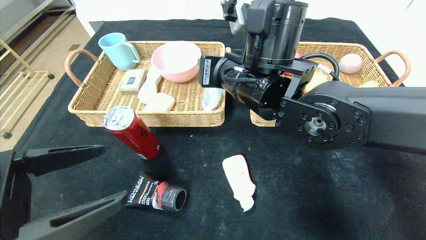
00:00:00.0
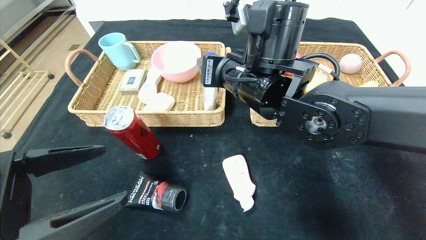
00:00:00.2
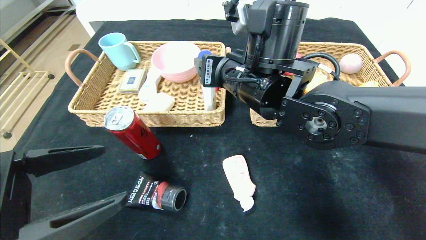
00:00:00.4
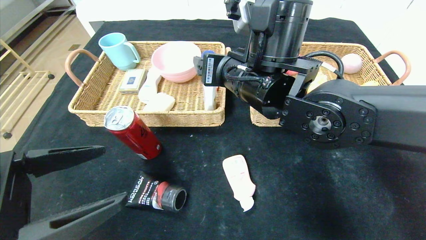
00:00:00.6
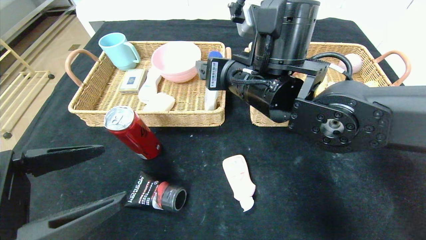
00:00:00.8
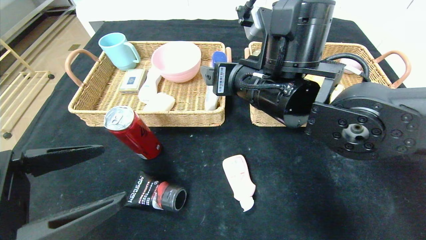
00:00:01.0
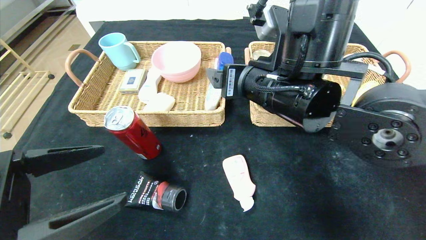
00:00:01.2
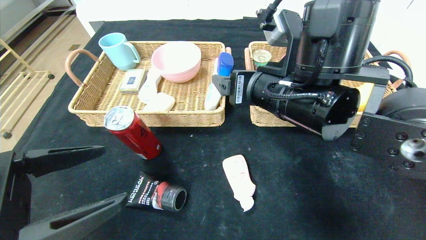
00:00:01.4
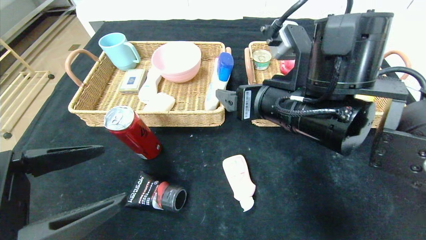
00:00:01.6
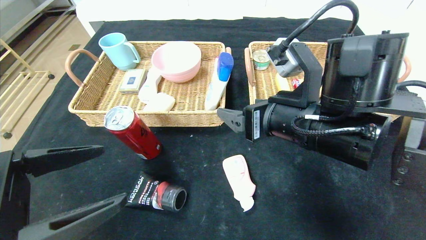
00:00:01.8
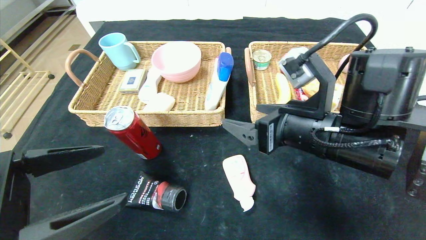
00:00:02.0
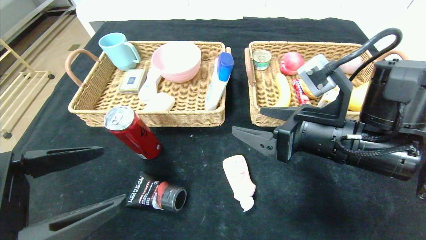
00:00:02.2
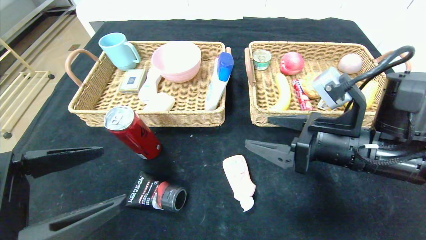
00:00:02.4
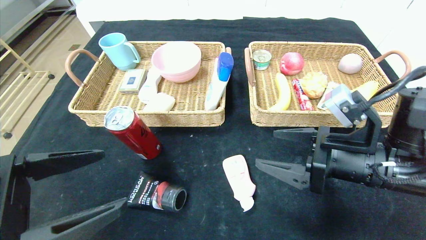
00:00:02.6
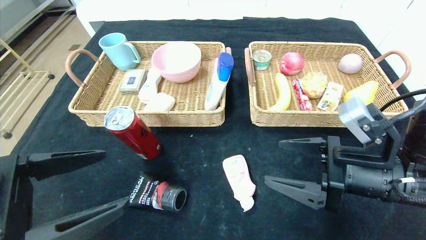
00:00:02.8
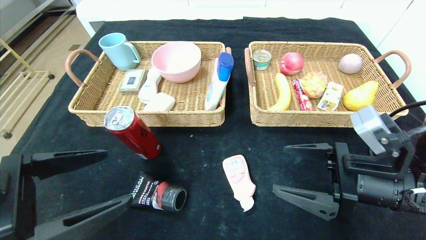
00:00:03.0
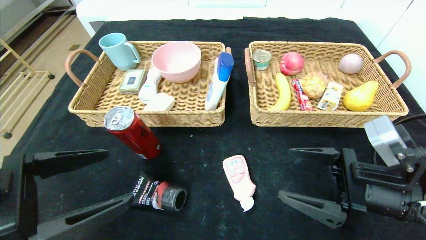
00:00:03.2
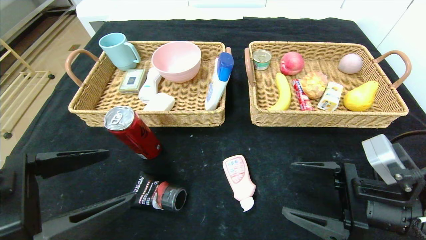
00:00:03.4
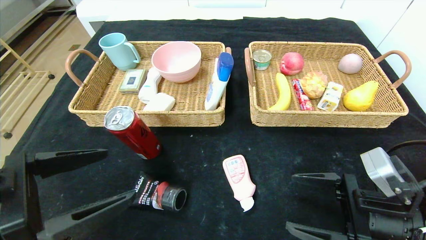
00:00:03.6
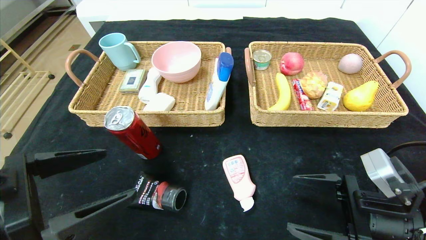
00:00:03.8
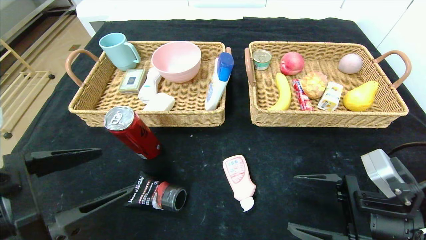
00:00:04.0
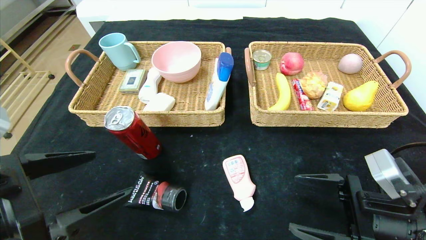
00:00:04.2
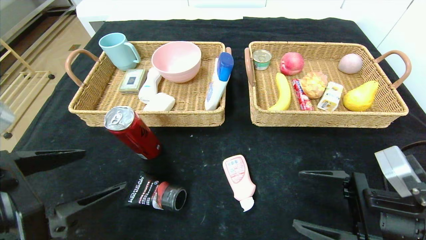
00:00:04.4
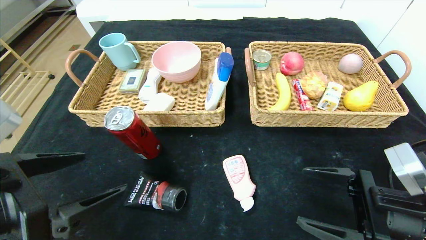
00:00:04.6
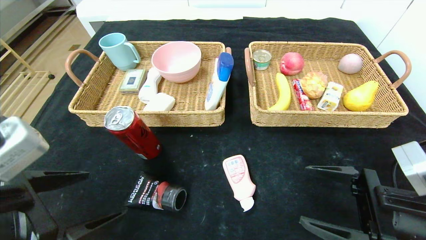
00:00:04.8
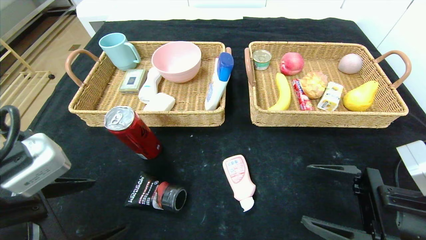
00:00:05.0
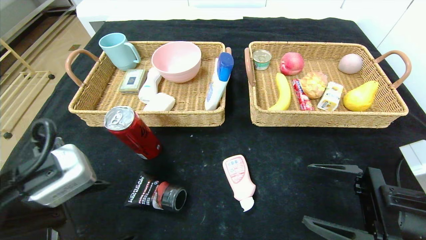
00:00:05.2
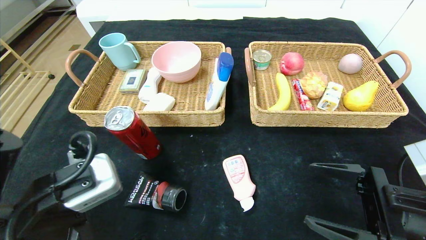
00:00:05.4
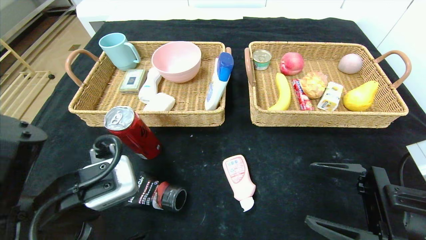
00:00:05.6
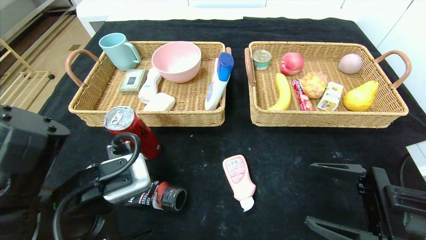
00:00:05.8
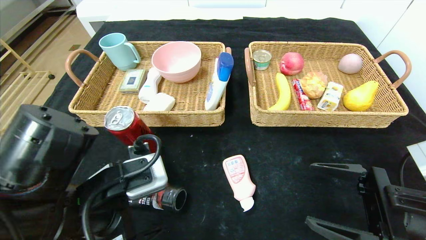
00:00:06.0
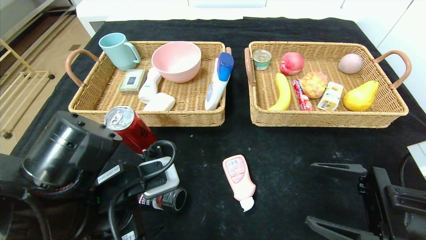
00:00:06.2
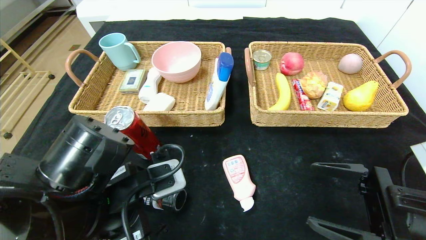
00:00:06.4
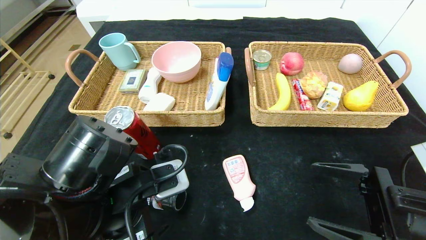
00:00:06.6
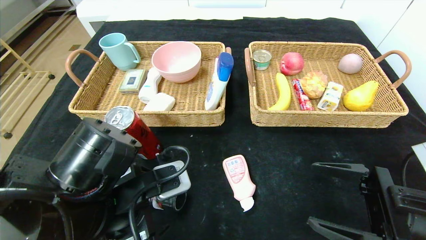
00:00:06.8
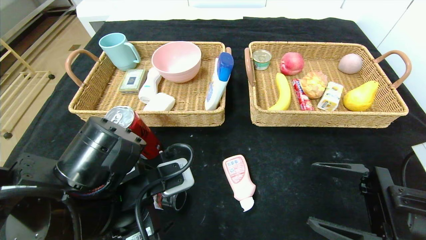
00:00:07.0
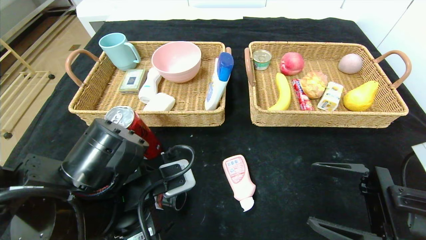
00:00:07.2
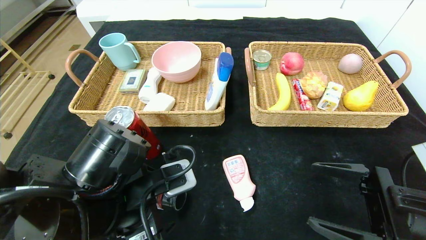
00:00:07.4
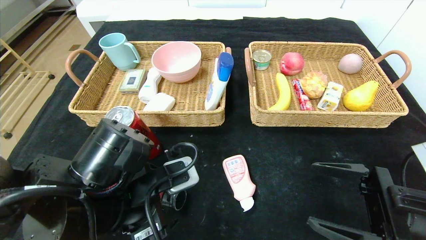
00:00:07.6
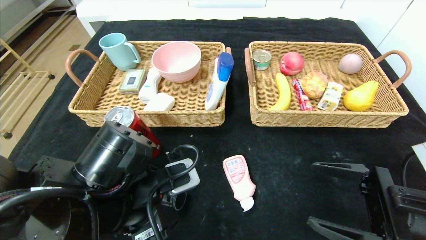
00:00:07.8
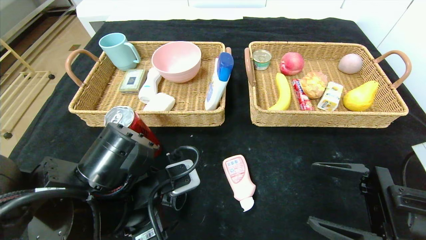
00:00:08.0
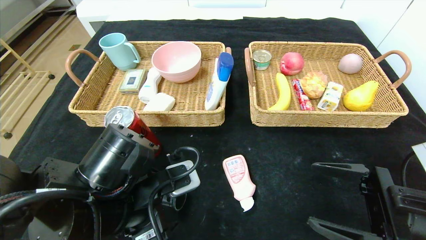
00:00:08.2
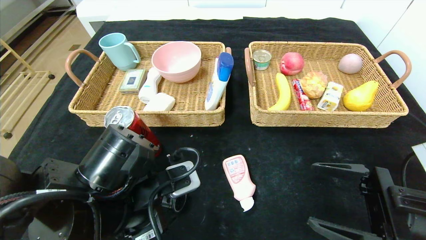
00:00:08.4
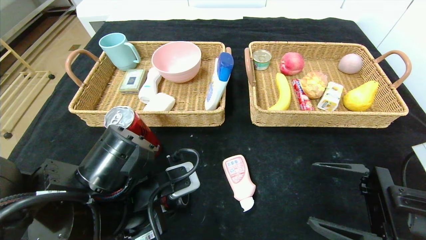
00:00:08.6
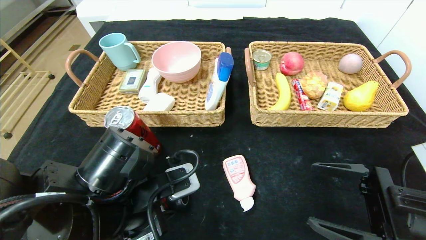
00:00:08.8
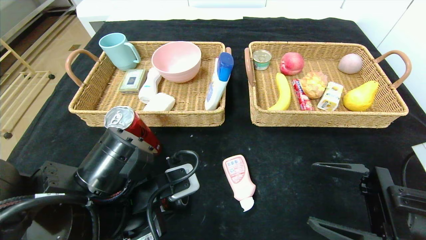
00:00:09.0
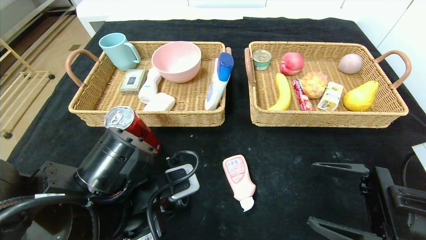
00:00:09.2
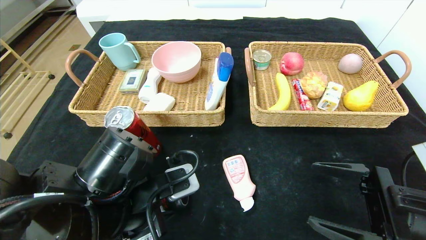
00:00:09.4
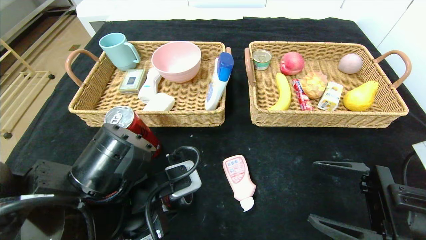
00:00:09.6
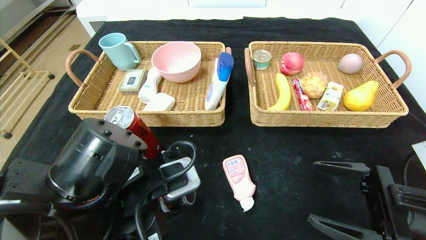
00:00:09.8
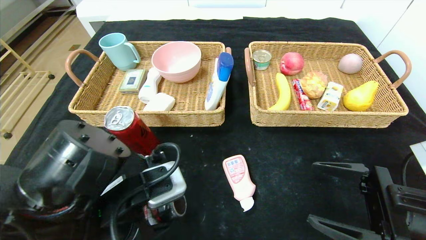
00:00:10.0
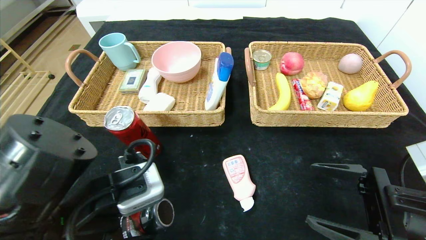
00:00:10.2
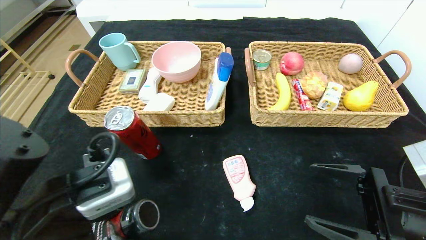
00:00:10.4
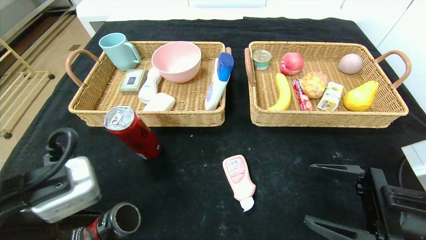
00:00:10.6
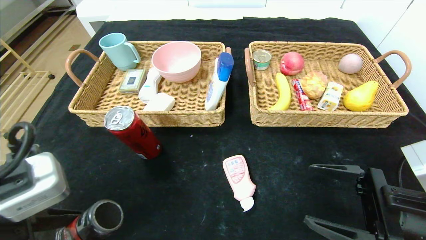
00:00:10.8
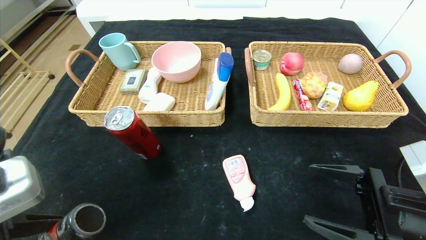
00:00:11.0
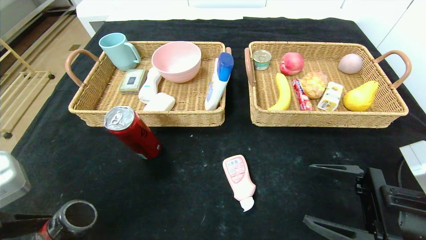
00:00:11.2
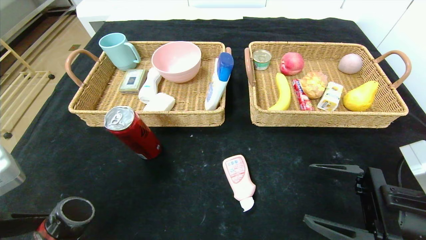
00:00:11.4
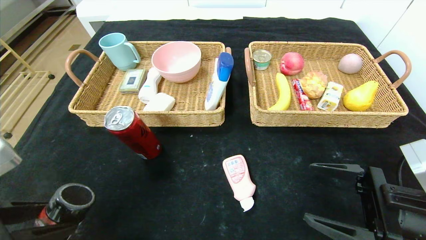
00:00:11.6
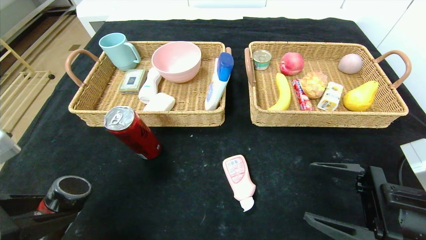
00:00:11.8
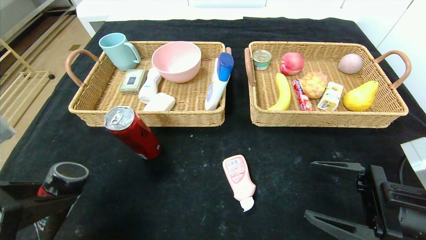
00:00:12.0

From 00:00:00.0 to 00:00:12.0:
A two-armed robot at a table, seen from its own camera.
From 00:00:00.0 to 00:00:01.6: The right gripper moves to the right and backward, approximately 10 cm, and opens.
From 00:00:01.6 to 00:00:03.0: The right gripper heads to the right and downward, covering roughly 15 cm.
From 00:00:03.0 to 00:00:04.4: The right gripper ends up approximately 5 cm from where it was.
From 00:00:04.4 to 00:00:06.0: The left gripper is displaced to the right and forward by about 10 cm.
From 00:00:06.0 to 00:00:07.6: The grippers move only a little.
From 00:00:07.6 to 00:00:09.0: The left gripper closes its fingers.
From 00:00:09.0 to 00:00:10.4: The left gripper is displaced backward and upward by approximately 10 cm.
From 00:00:10.4 to 00:00:12.0: The left gripper moves to the left, about 10 cm.

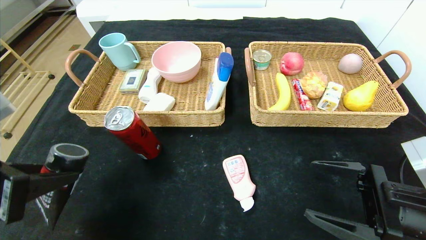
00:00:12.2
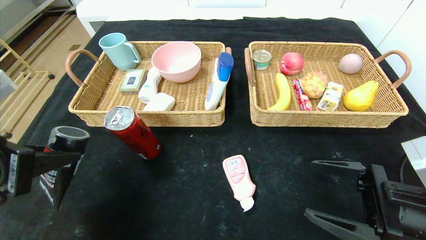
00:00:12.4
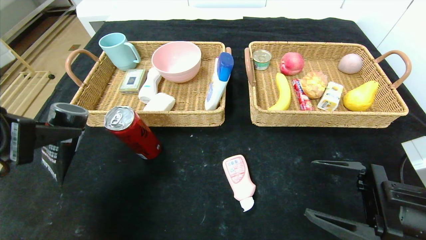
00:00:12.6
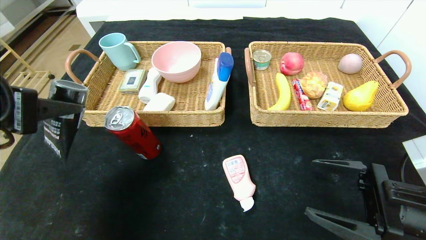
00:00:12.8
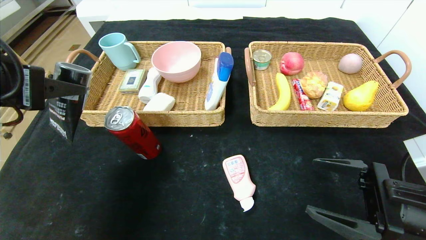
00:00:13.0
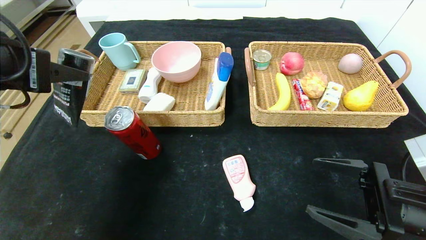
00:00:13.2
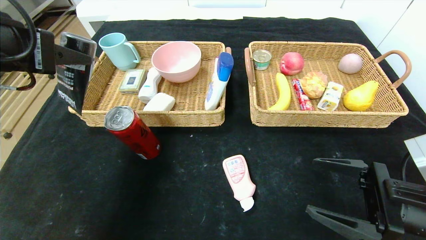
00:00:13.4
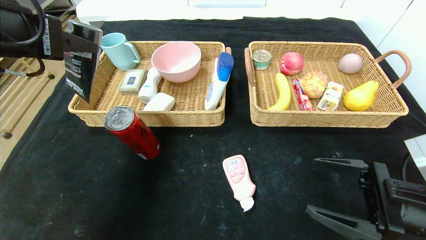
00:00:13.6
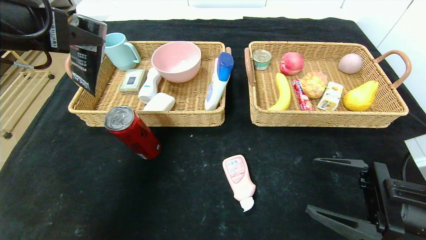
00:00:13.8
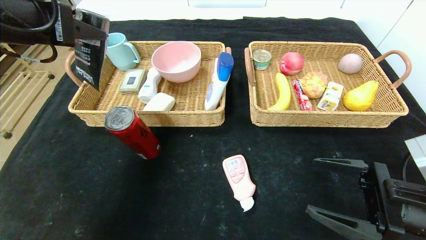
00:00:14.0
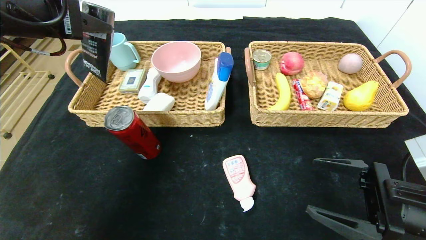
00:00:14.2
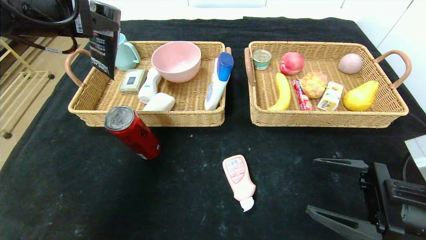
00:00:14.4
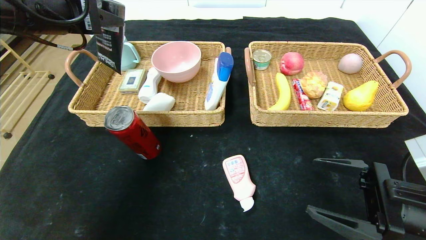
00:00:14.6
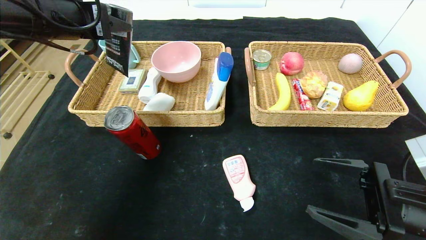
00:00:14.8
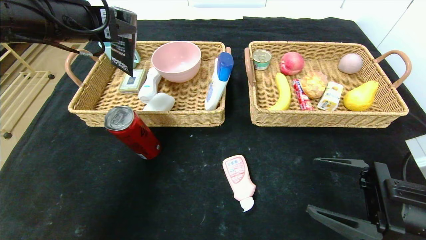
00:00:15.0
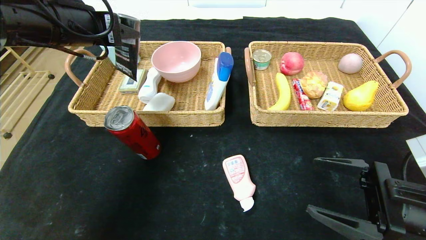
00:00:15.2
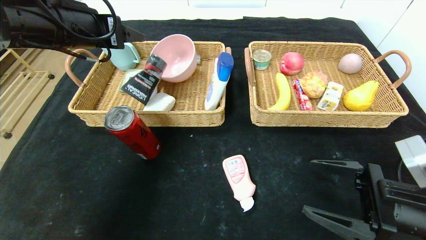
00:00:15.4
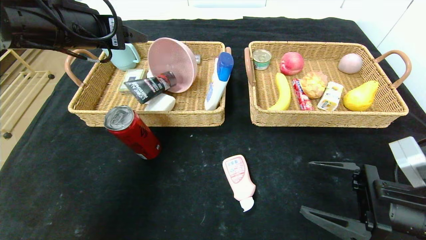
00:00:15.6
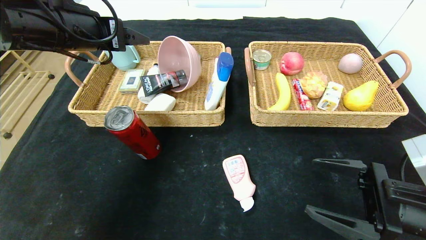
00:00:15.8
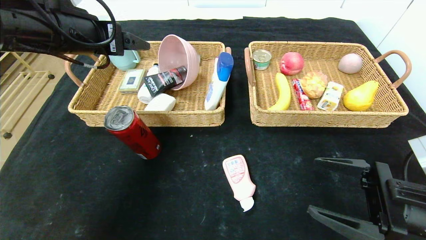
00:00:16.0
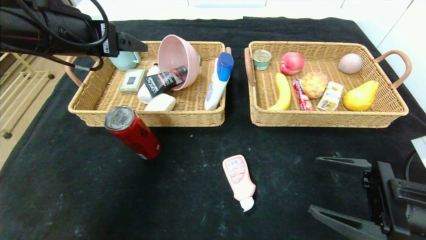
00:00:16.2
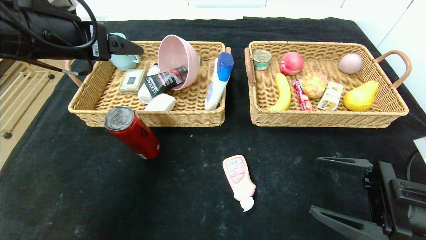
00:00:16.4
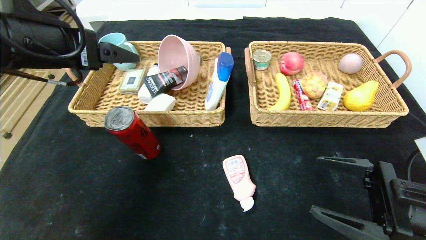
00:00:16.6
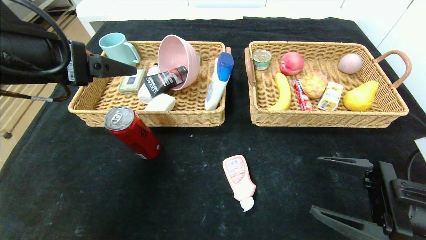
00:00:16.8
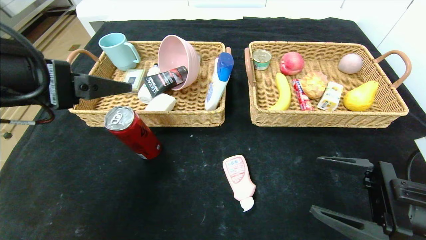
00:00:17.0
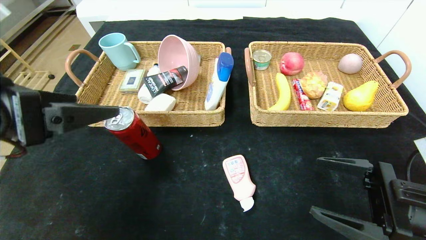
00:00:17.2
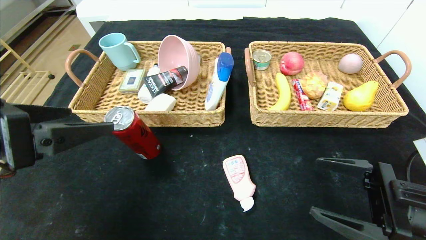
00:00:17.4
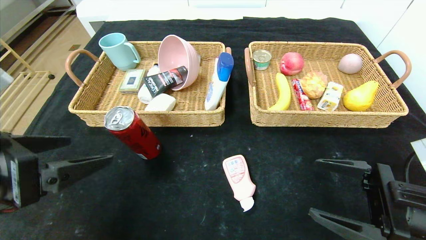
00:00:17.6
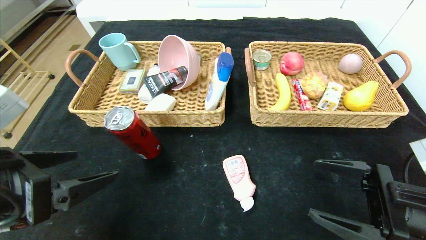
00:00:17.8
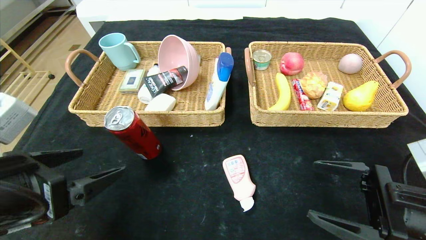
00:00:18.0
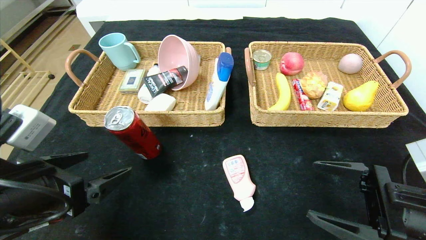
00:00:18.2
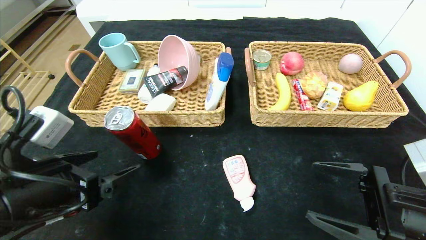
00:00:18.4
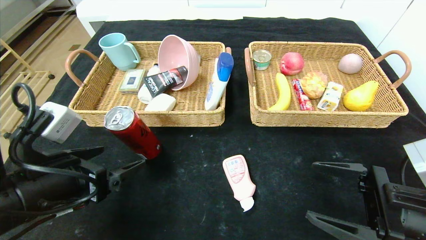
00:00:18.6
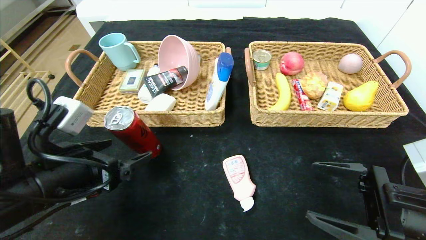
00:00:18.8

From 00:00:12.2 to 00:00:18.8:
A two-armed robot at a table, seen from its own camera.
Step, from 00:00:12.2 to 00:00:15.4: Grasp the detergent and put it in the left basket.
From 00:00:12.2 to 00:00:13.8: The left gripper travels upward and forward by about 15 cm.
From 00:00:13.8 to 00:00:15.4: The left gripper travels forward by some 10 cm, and opens up.
From 00:00:15.4 to 00:00:17.2: The left gripper heads backward, covering roughly 15 cm, and opens up.
From 00:00:17.2 to 00:00:18.8: The left gripper moves downward, about 10 cm.
